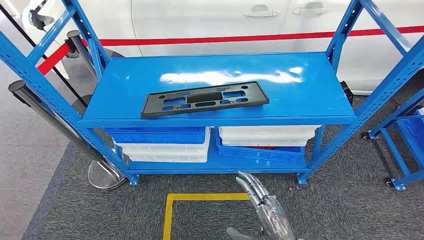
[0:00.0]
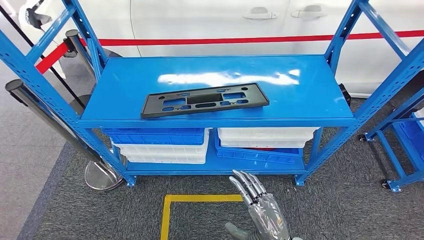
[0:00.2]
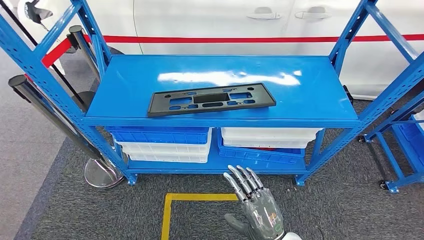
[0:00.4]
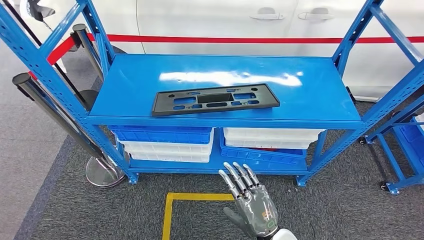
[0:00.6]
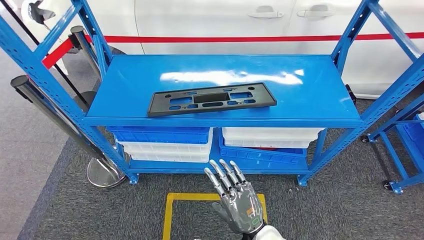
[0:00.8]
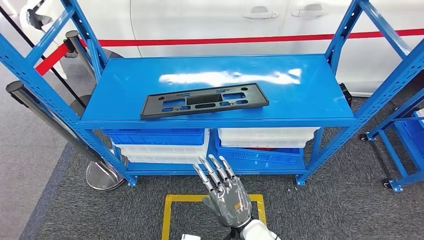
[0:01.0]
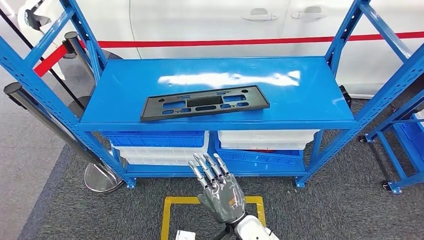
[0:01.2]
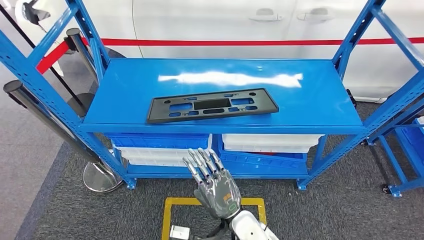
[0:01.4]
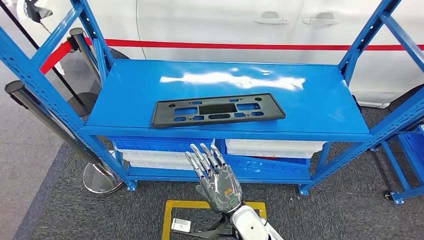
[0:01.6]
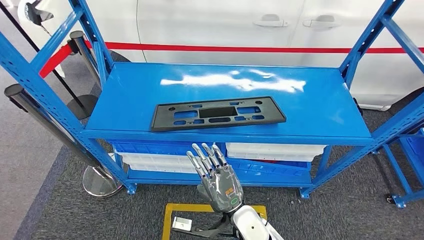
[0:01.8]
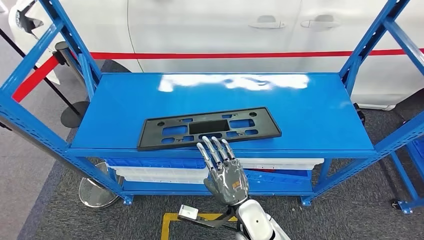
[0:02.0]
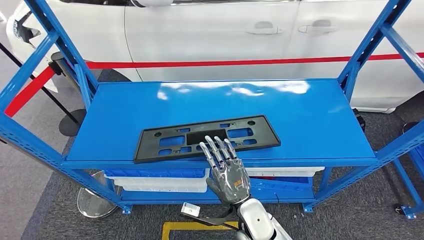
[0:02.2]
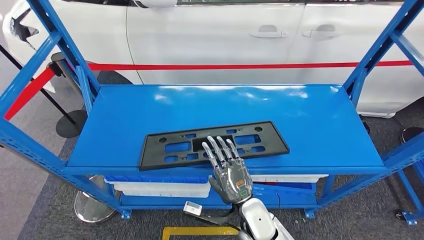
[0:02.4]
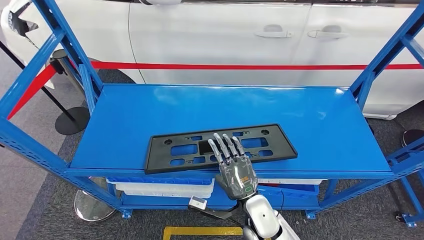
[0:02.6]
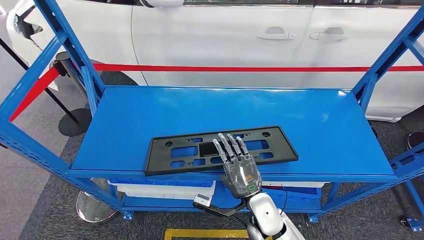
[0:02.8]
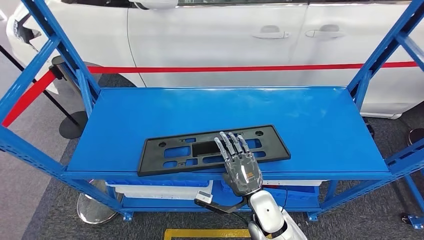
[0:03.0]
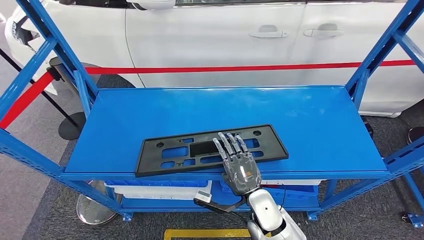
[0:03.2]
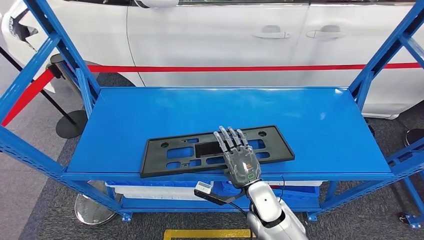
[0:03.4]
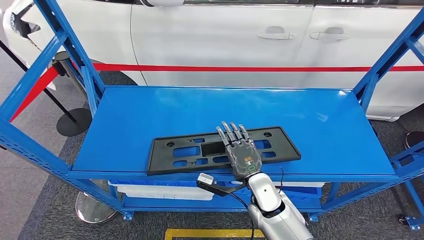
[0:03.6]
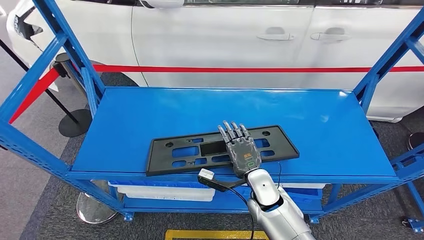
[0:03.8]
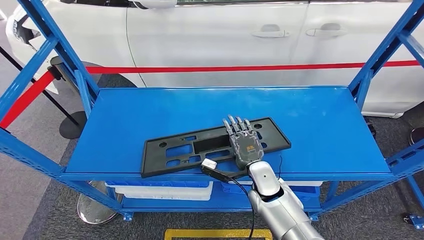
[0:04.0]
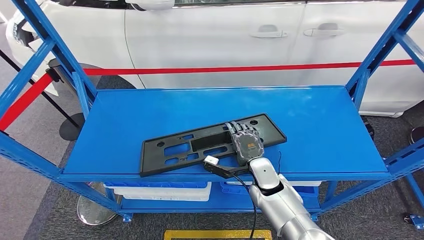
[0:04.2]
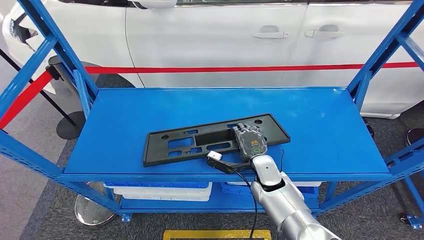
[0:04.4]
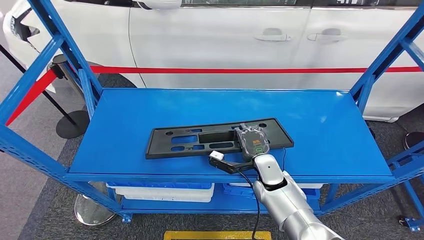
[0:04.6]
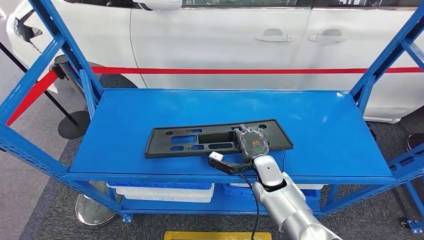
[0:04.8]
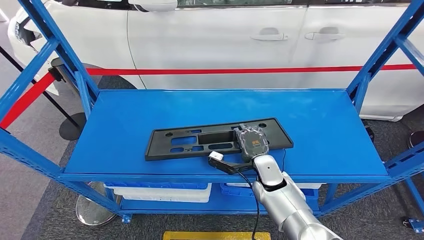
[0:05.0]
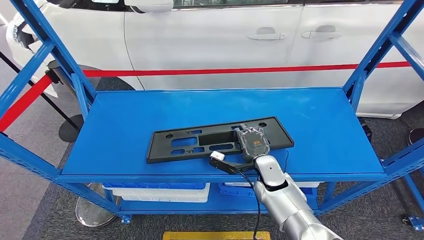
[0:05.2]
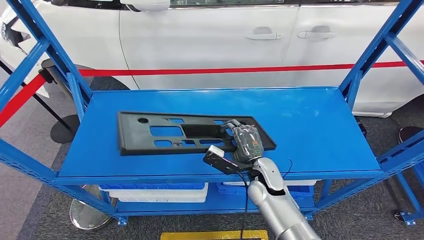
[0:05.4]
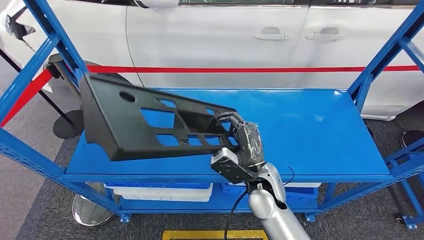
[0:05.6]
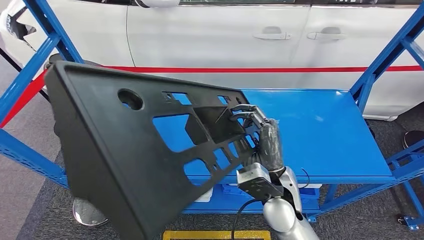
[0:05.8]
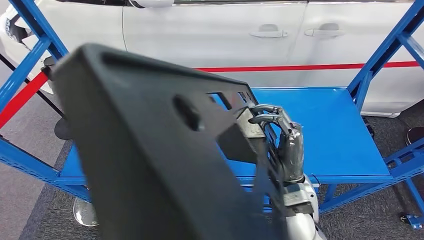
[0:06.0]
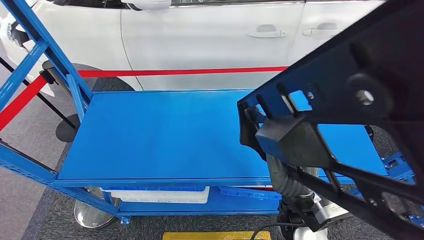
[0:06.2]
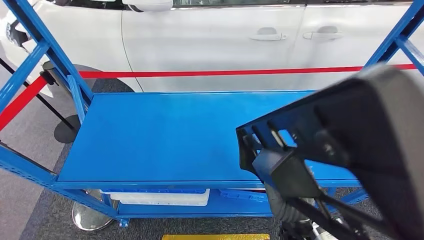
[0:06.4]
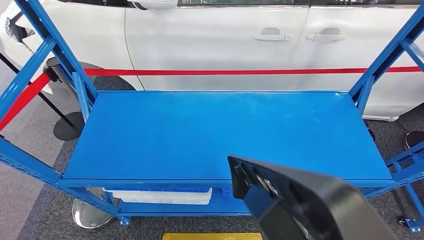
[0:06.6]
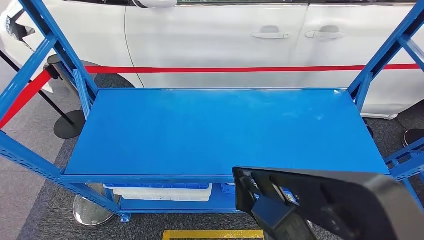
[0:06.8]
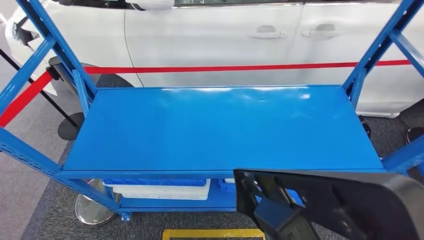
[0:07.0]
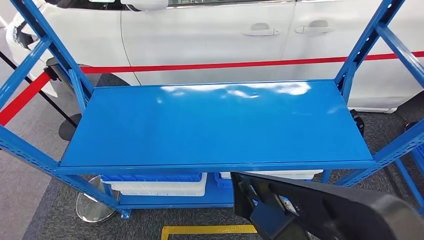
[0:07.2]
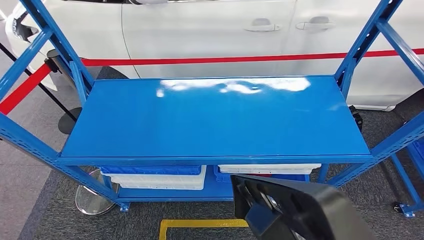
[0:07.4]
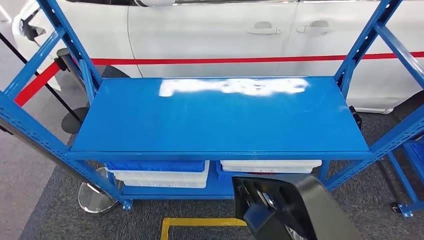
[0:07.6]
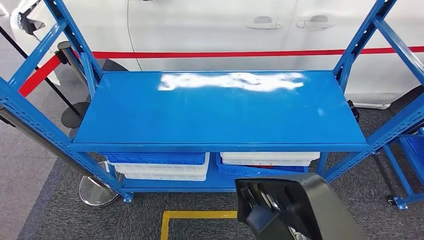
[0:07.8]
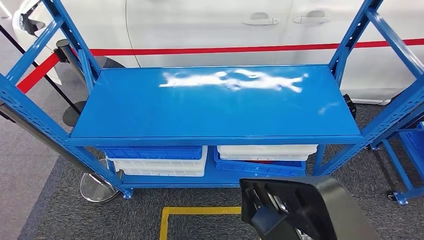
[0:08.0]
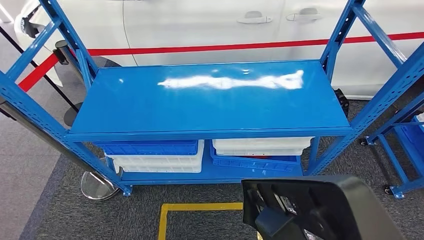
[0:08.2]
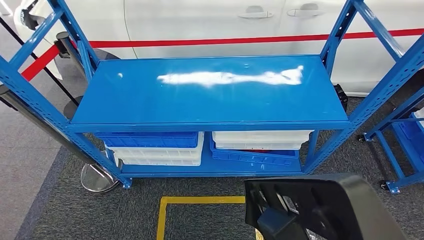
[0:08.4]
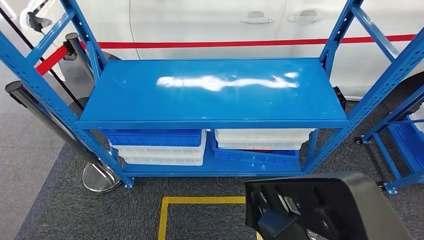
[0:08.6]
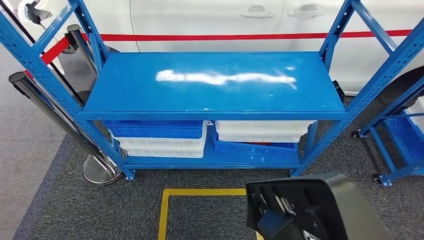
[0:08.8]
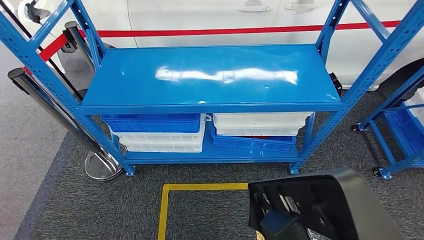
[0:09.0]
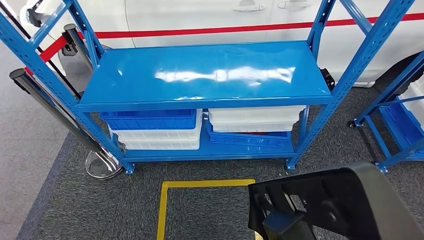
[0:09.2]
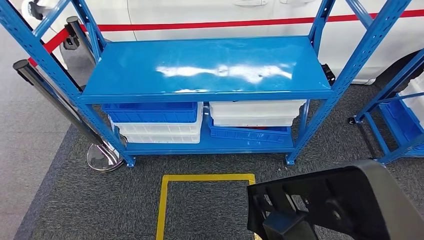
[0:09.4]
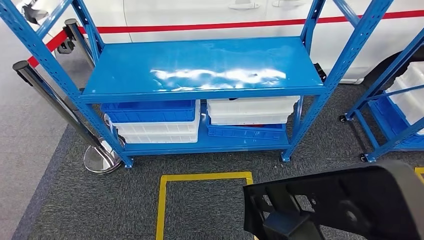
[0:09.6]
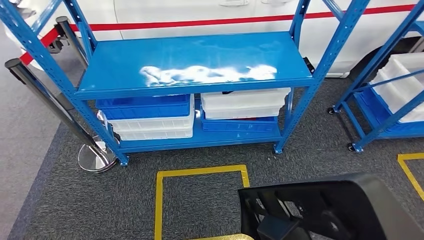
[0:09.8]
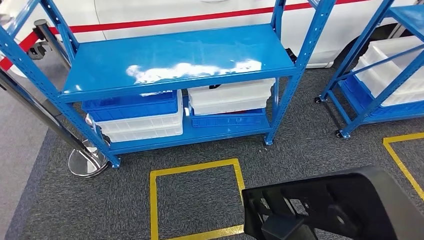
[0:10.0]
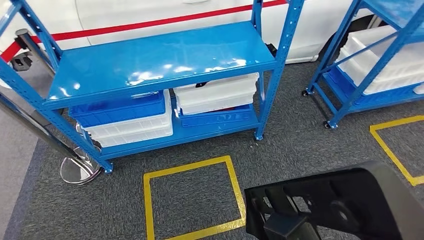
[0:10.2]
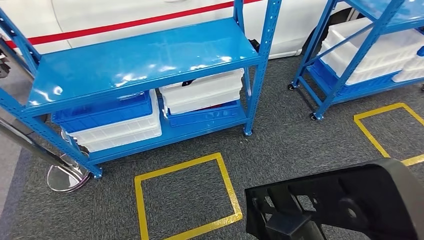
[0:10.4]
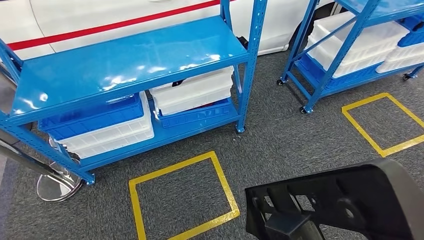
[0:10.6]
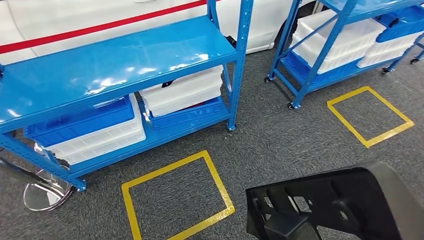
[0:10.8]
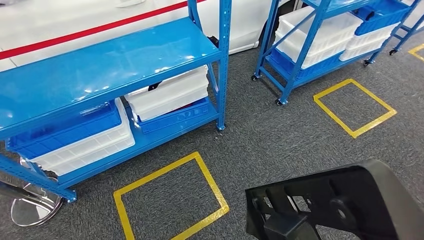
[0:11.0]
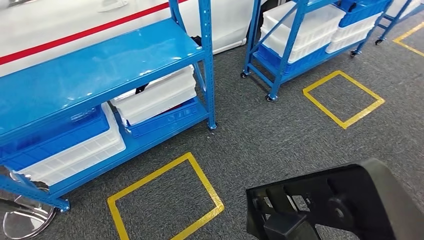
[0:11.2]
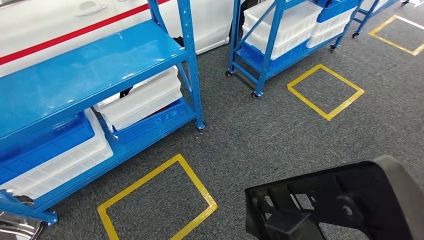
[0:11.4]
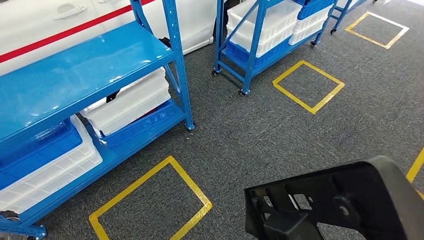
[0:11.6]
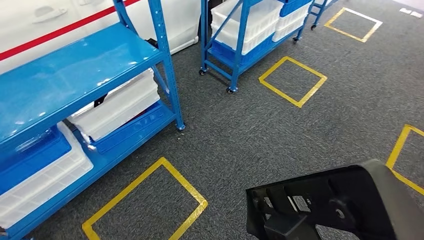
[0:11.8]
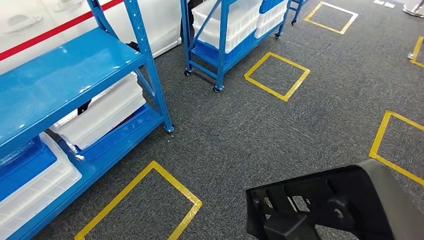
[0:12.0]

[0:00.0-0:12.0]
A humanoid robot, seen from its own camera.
Step, 0:00.0 to 0:07.2: Pick up the large material from the shelf.
0:03.0 to 0:04.4: The right hand goes some 10 cm forward.

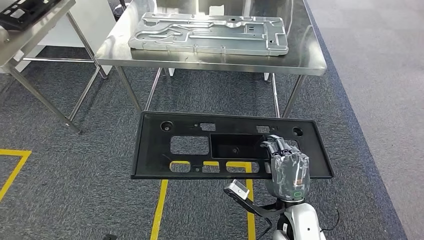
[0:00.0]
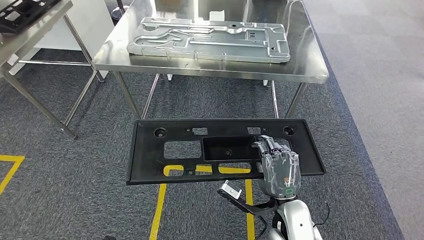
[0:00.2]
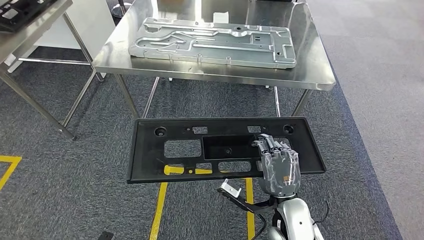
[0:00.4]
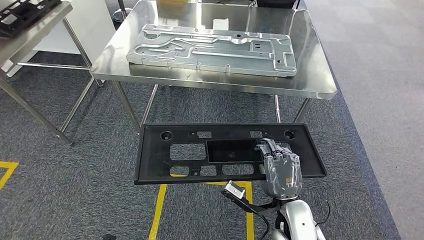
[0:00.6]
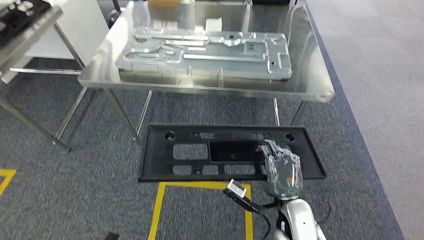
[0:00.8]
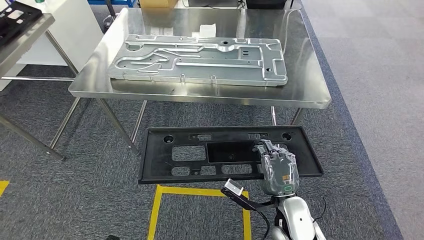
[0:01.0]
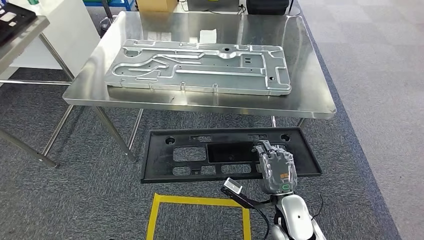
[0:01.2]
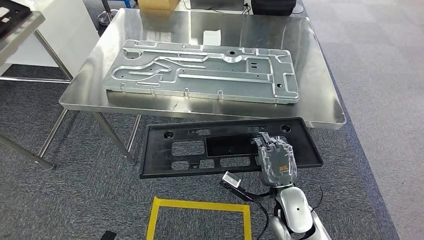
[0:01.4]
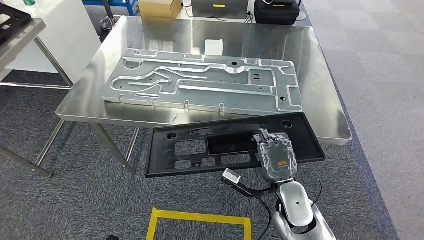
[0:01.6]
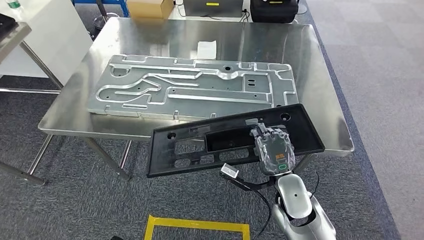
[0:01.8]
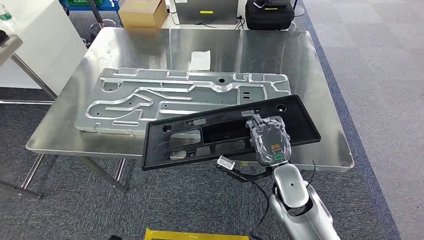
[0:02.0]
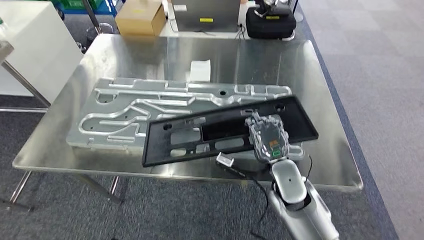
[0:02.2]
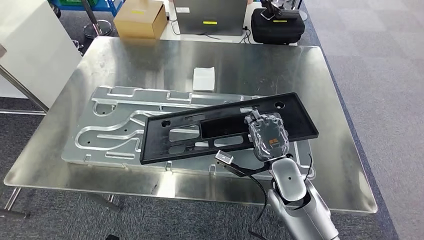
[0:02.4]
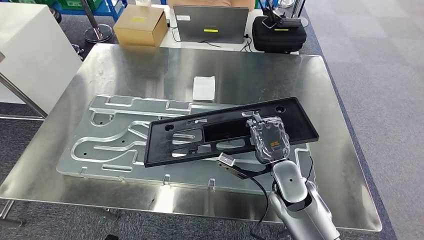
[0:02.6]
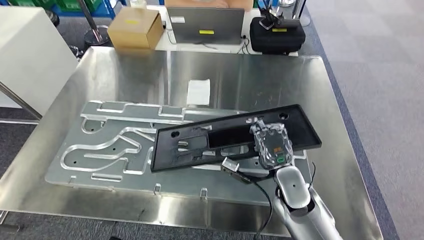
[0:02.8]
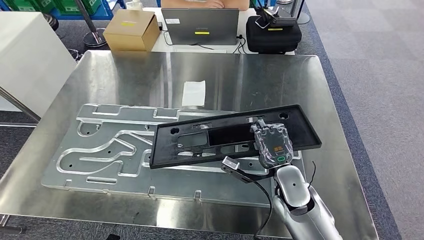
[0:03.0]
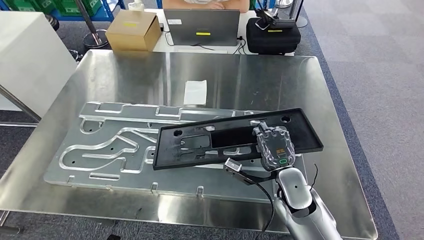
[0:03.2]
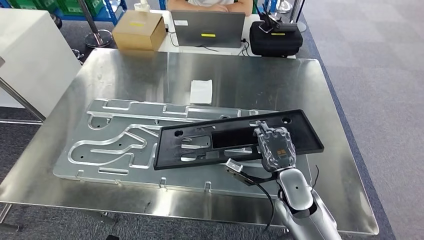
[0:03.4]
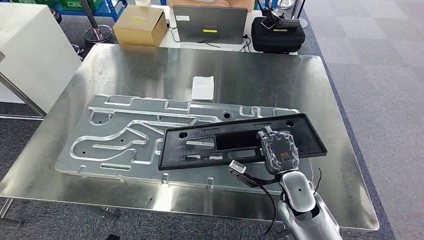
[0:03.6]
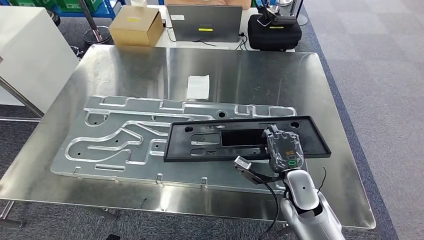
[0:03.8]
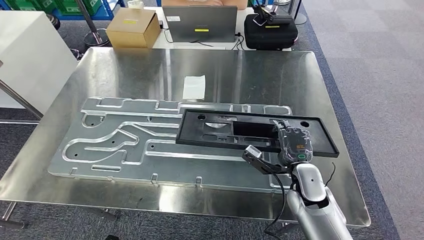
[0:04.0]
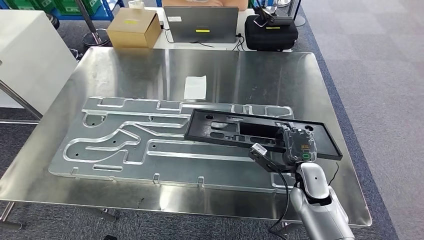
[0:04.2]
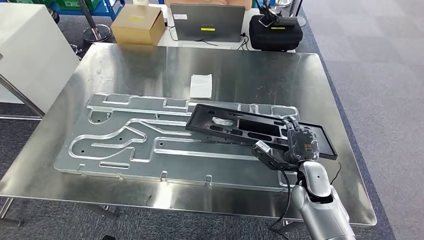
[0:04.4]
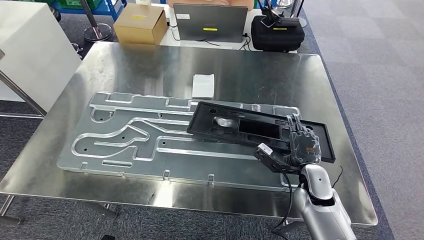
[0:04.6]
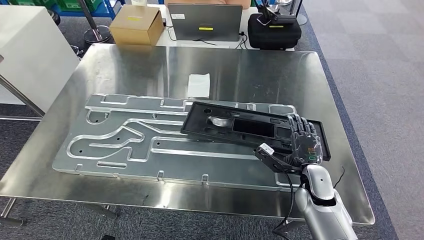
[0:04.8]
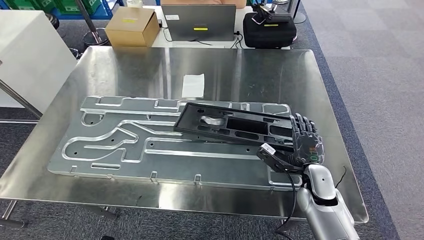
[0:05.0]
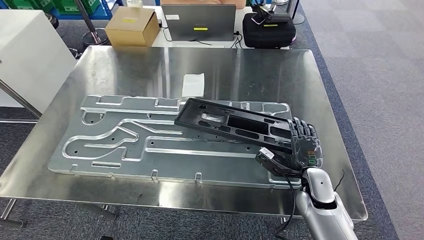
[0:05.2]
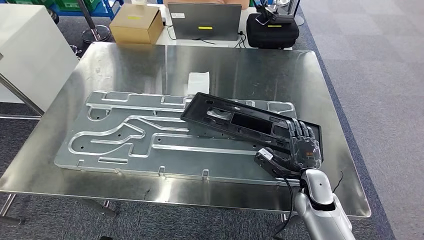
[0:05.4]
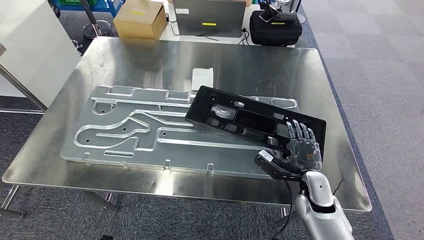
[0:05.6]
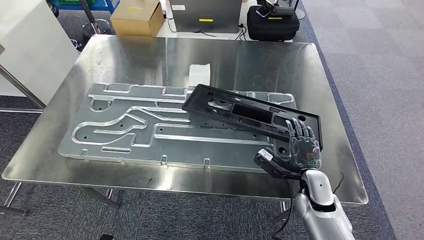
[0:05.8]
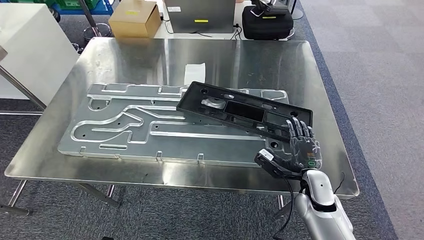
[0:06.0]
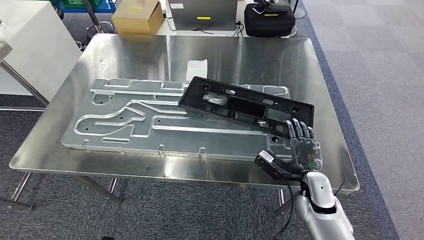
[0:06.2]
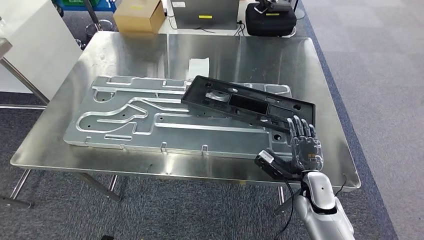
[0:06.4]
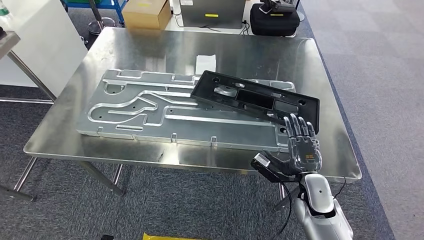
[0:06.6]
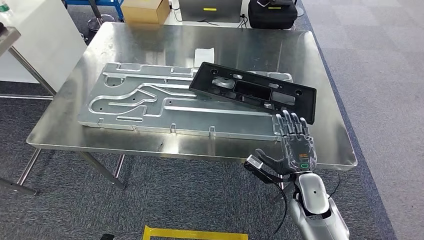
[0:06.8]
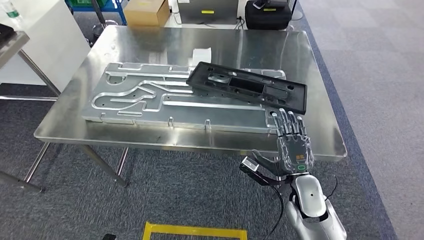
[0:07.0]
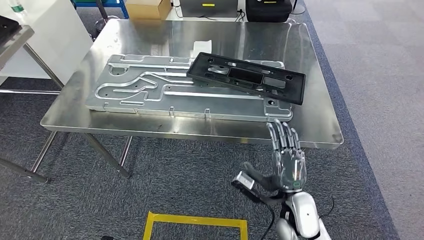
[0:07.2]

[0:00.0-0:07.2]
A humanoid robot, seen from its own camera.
Step, 0:00.0 to 0:02.8: Move the large material to the workbench.
